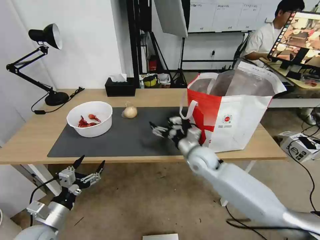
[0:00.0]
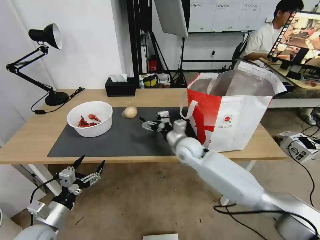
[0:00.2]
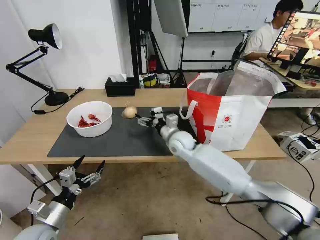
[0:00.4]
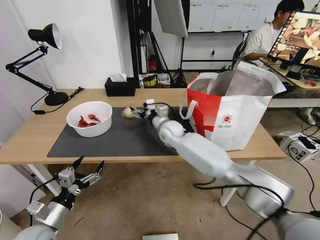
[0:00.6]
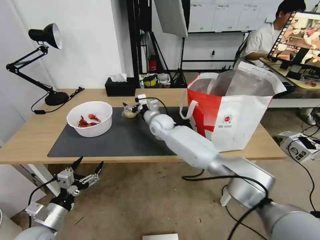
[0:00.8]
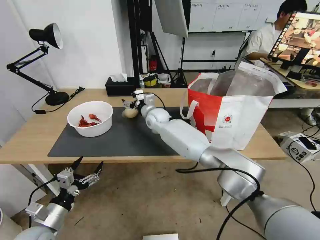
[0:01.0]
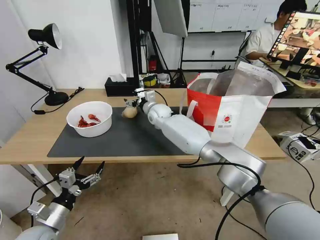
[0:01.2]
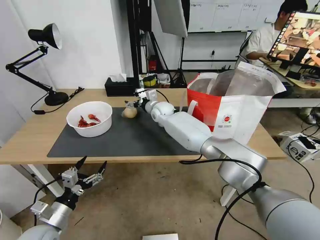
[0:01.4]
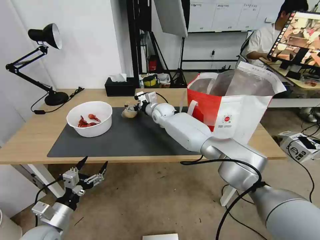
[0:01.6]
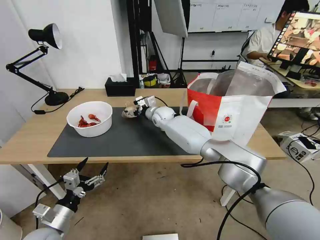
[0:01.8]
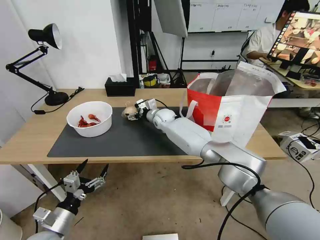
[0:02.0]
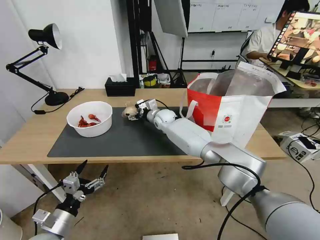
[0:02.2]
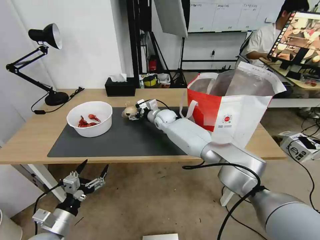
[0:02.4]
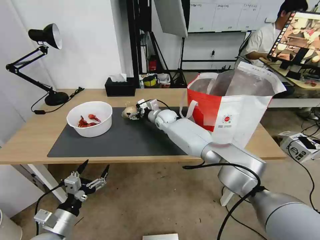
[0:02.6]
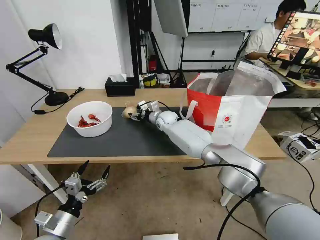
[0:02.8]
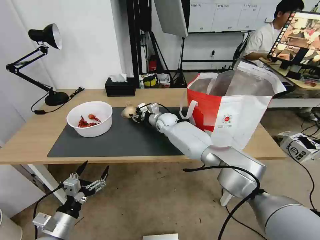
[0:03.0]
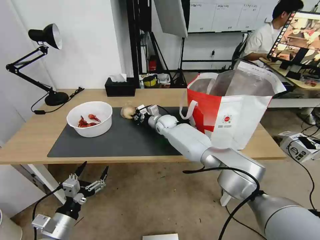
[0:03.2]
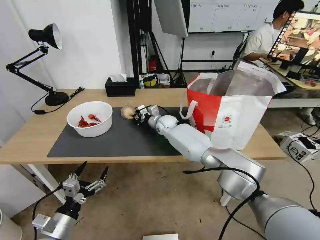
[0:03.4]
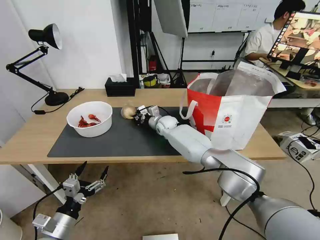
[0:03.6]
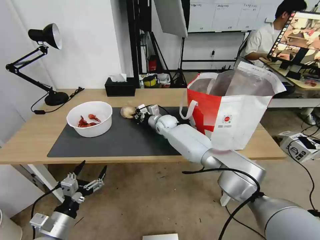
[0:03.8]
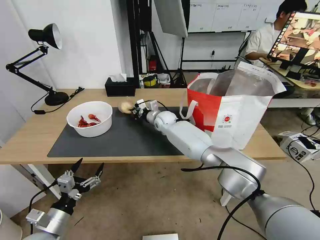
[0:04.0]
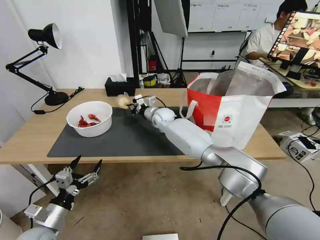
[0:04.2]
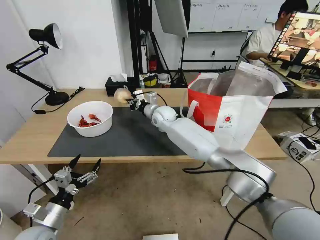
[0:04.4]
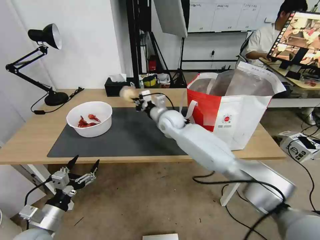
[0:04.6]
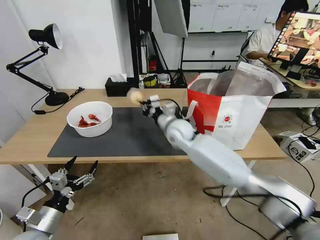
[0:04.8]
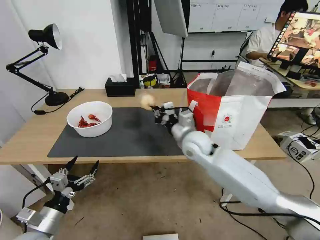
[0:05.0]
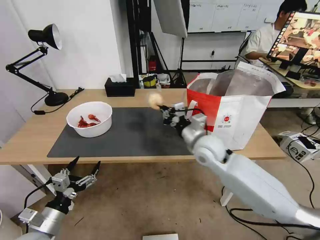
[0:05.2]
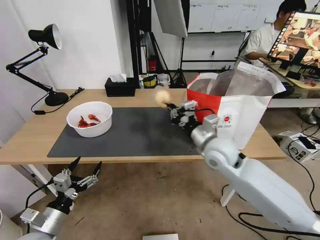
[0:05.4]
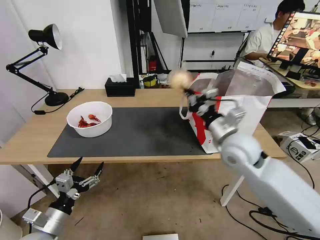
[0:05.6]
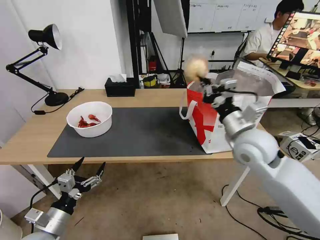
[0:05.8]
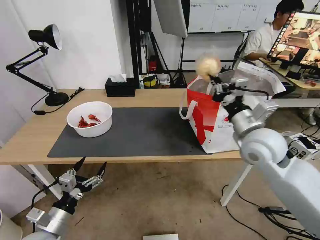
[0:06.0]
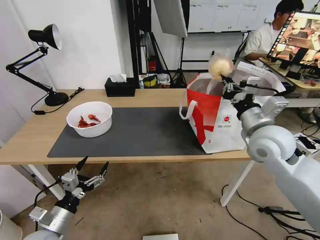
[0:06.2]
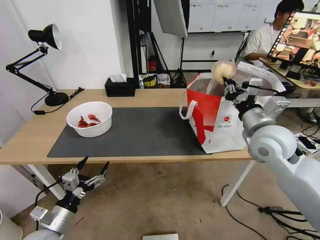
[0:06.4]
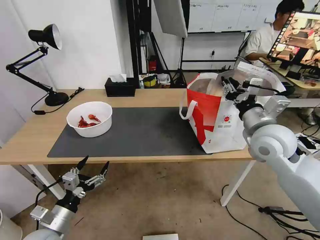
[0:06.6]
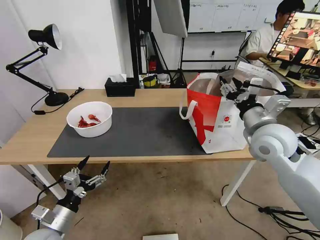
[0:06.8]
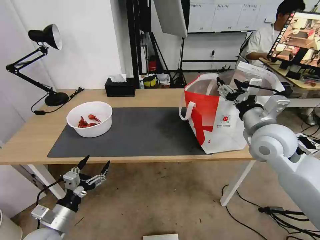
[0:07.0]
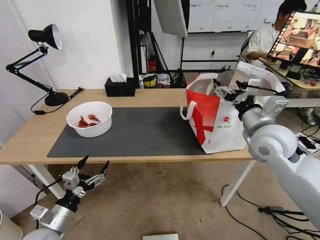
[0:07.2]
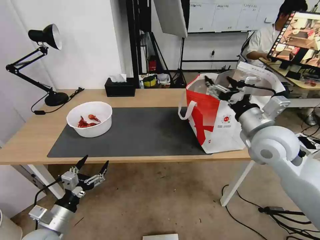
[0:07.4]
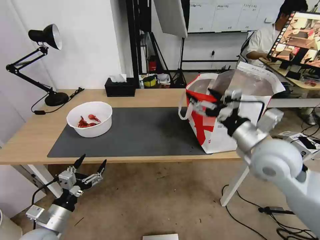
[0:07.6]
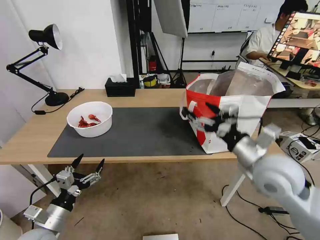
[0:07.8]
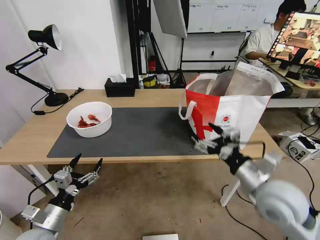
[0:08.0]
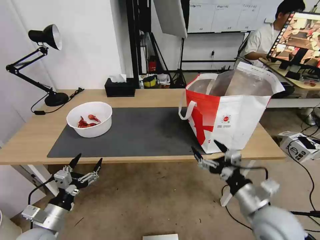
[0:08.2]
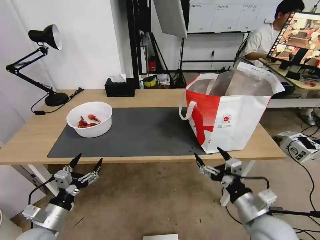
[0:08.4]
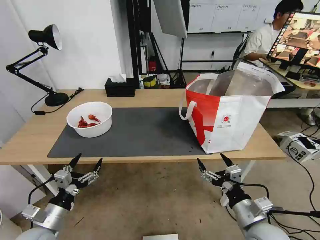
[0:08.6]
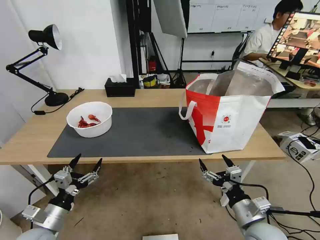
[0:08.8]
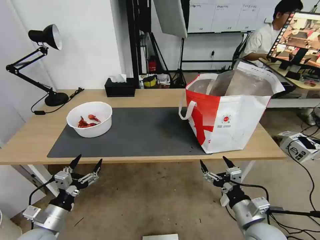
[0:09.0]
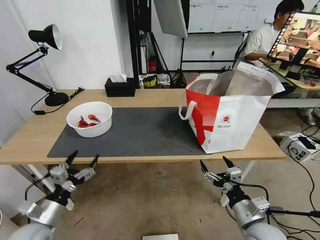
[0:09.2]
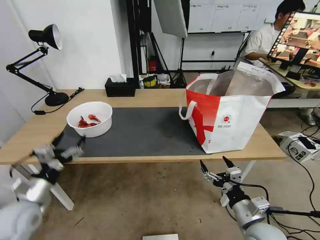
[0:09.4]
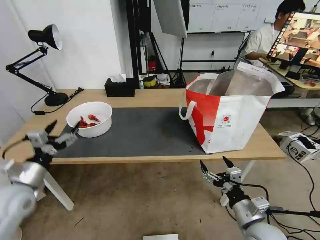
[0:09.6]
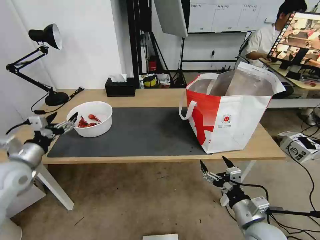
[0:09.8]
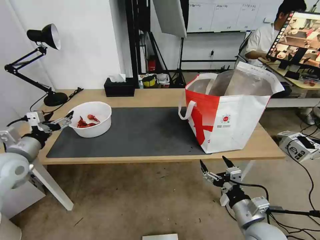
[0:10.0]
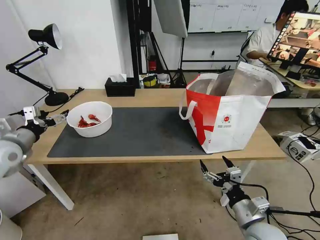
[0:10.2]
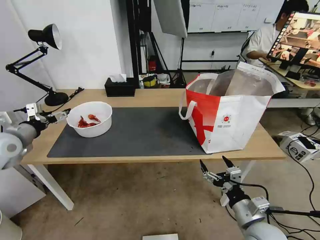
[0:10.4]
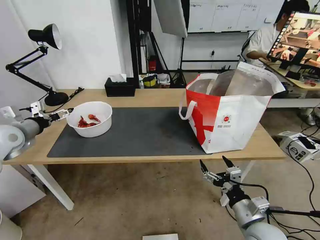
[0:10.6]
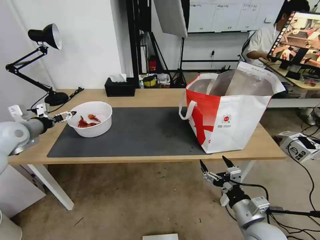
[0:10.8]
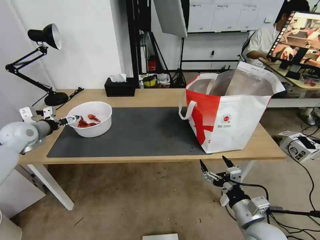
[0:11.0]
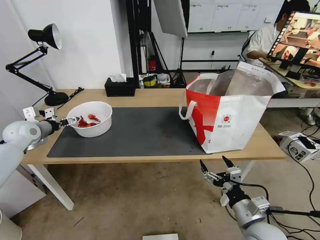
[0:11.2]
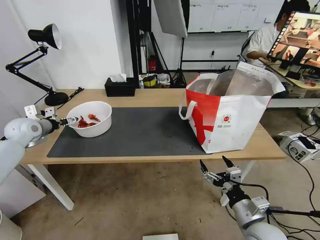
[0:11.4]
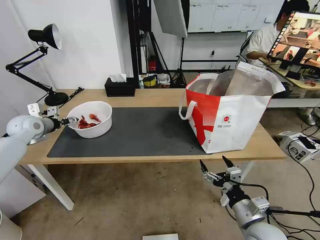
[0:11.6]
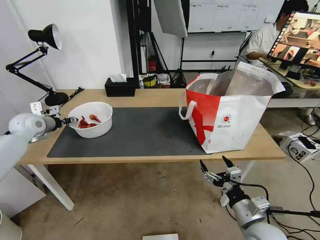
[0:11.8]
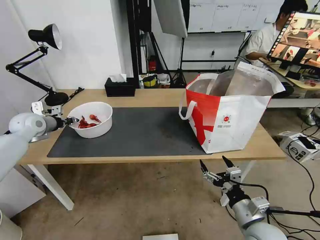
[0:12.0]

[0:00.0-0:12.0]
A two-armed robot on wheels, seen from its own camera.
Task of the whole recording: Pick up the trash from the table and place it into the takeout bag.
0:00.0 to 0:01.6: The right gripper shifts about 25 cm forward and to the left.
0:01.6 to 0:03.0: The right gripper moves roughly 5 cm, and closes.
0:03.0 to 0:04.4: The right gripper heads upward, covering about 5 cm, and closes its fingers.
0:04.4 to 0:06.0: The right gripper goes roughly 35 cm to the right and backward.
0:06.0 to 0:07.6: The right gripper opens up.
0:07.6 to 0:09.0: The right gripper shifts about 25 cm downward and backward.
0:09.0 to 0:10.4: The left gripper is displaced forward, upward and to the left by approximately 30 cm.
0:10.4 to 0:12.0: The left gripper shifts about 10 cm forward, and closes its fingers.

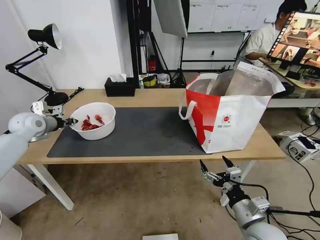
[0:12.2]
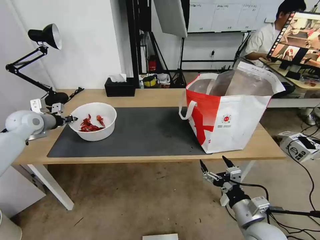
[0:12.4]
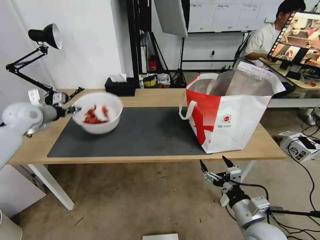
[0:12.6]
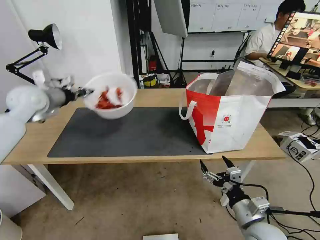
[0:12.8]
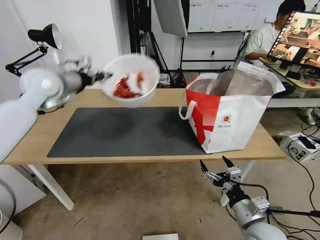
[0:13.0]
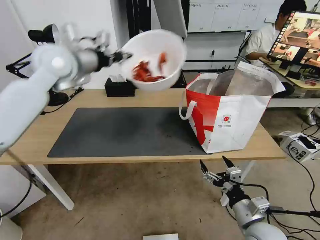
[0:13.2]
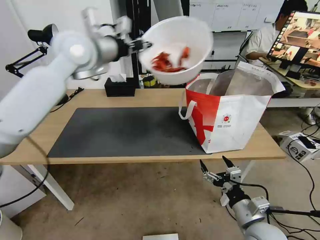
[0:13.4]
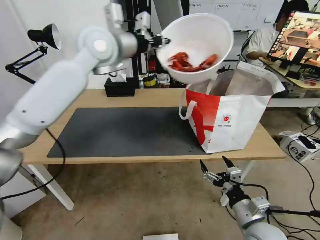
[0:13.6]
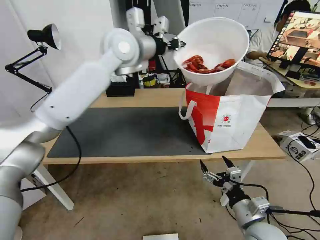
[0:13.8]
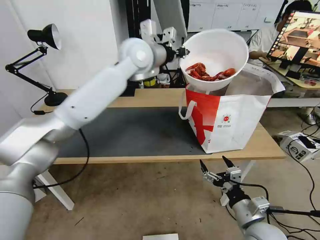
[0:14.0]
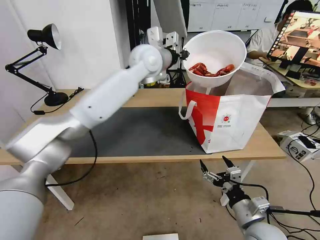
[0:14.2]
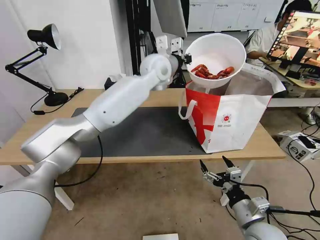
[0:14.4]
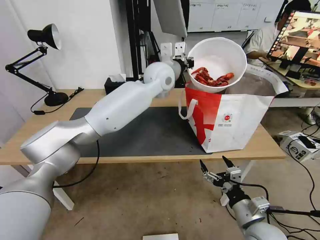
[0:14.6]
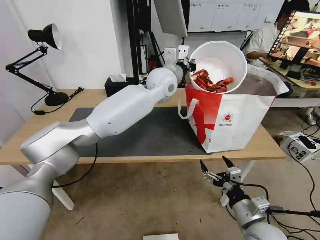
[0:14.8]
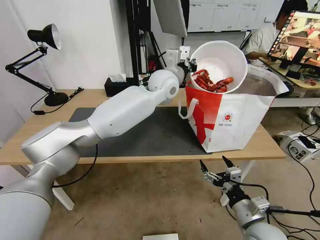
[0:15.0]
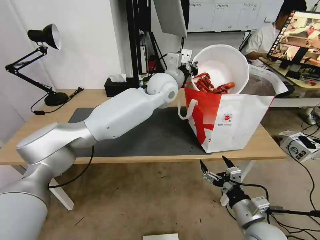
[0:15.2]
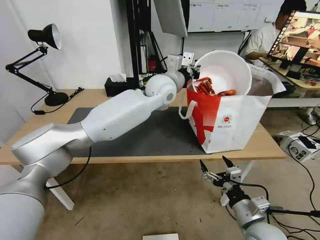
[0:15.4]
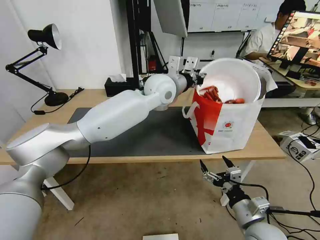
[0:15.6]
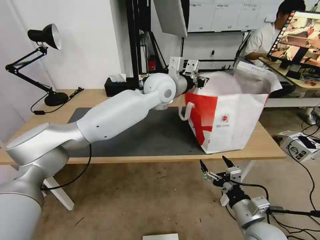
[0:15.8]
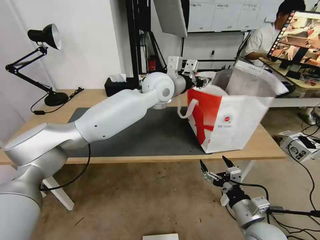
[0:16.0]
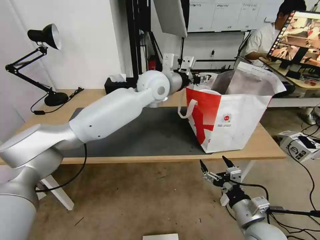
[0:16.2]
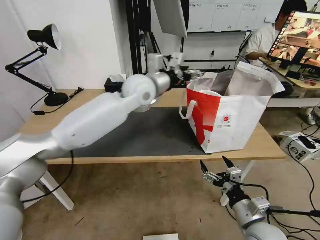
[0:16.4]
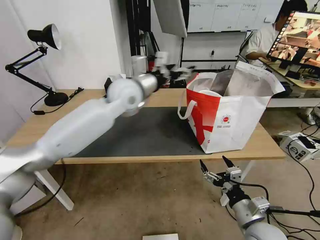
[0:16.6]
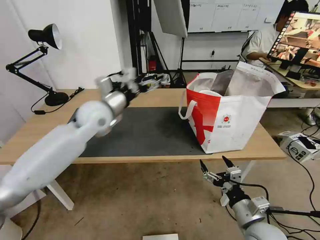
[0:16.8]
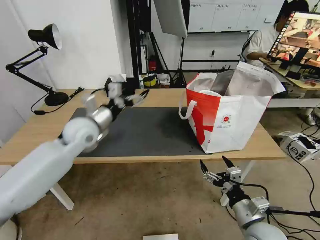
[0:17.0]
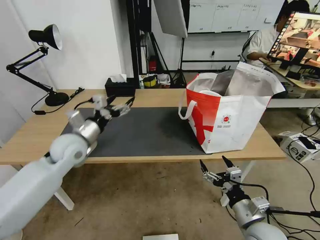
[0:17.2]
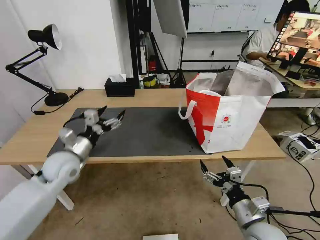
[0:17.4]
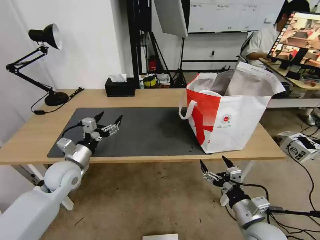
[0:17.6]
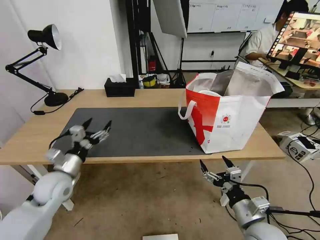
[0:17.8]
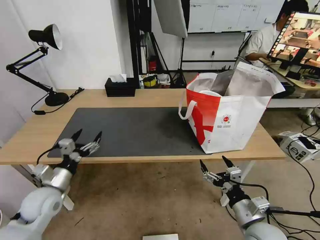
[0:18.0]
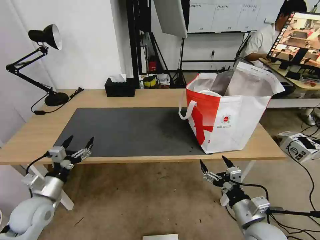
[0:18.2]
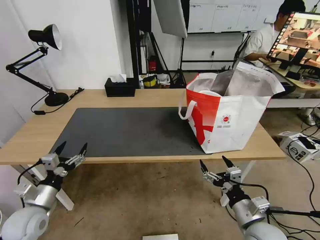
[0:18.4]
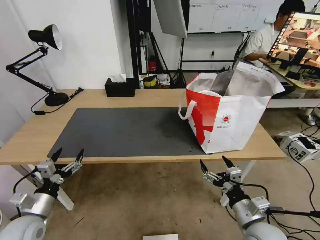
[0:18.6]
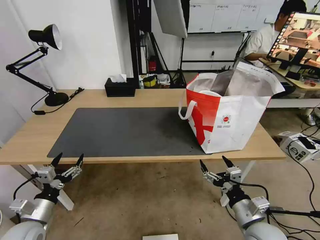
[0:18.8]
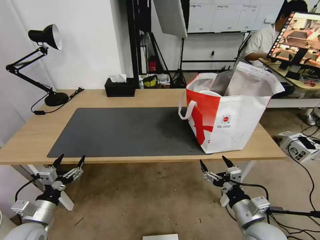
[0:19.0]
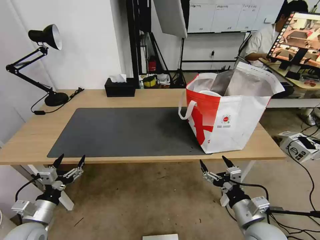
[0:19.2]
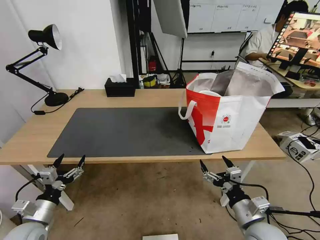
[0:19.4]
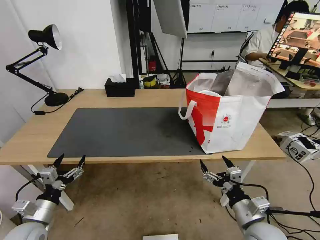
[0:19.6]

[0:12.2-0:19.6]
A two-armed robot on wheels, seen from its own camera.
Task of the whole recording: Pick up the trash from the table and place it into the takeout bag.
0:12.2 to 0:13.6: The left gripper is displaced to the right and upward by approximately 40 cm.
0:13.6 to 0:15.2: The left gripper heads to the right and downward, covering some 20 cm.
0:15.2 to 0:16.6: The left gripper heads to the left, covering some 10 cm, and opens up.
0:16.6 to 0:18.2: The left gripper is displaced to the left, downward and backward by about 50 cm.
0:18.2 to 0:19.6: The left gripper travels backward by some 5 cm.
